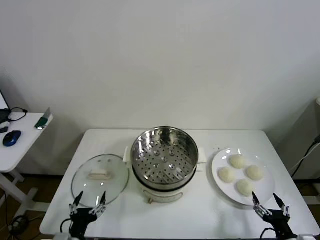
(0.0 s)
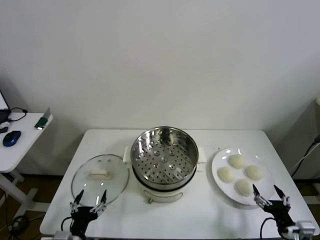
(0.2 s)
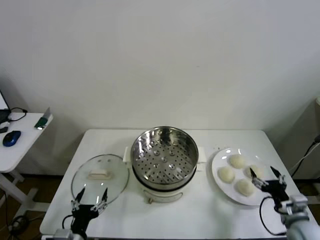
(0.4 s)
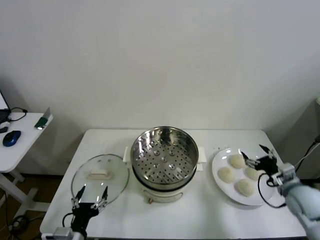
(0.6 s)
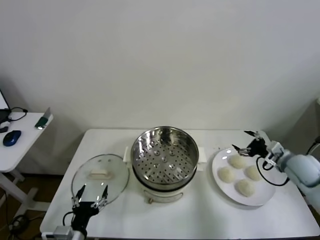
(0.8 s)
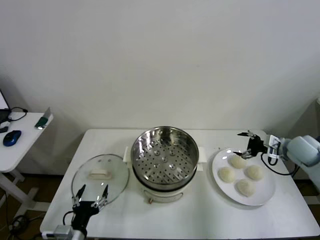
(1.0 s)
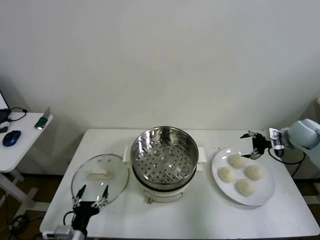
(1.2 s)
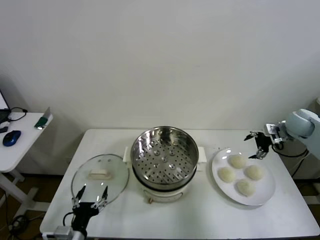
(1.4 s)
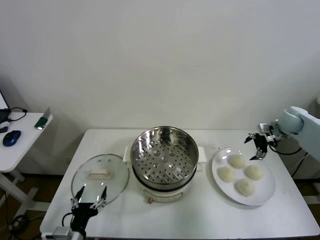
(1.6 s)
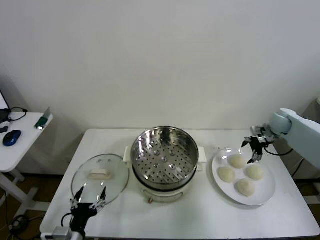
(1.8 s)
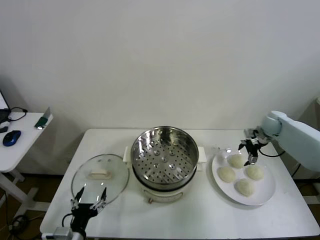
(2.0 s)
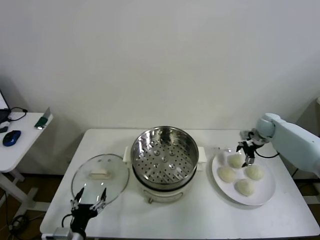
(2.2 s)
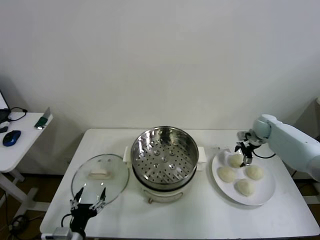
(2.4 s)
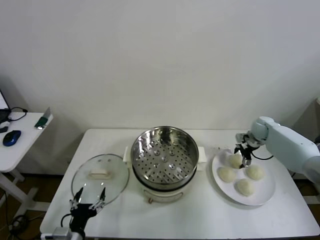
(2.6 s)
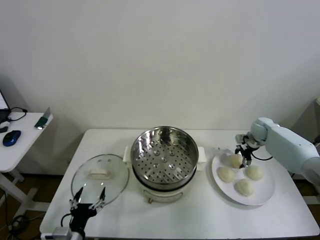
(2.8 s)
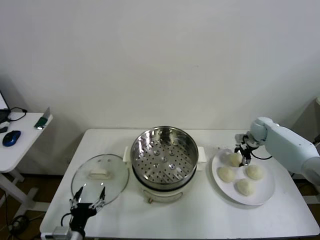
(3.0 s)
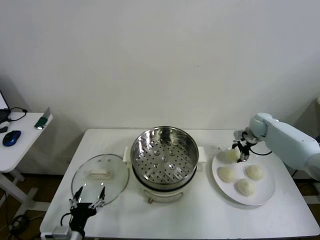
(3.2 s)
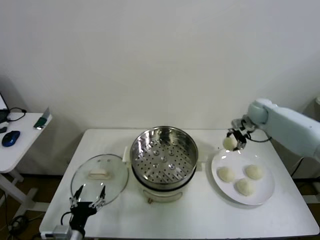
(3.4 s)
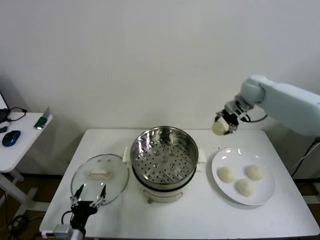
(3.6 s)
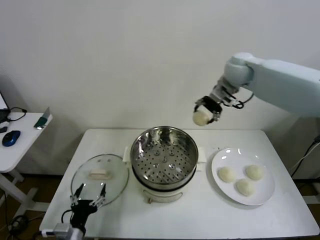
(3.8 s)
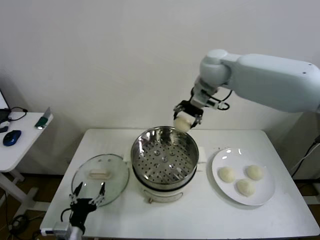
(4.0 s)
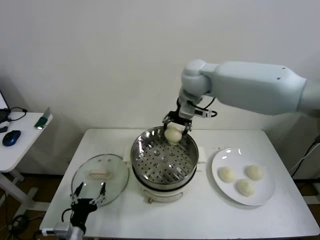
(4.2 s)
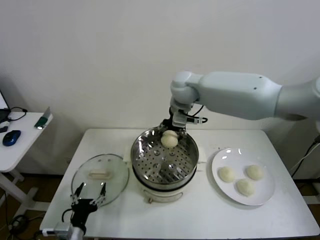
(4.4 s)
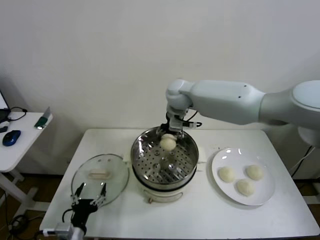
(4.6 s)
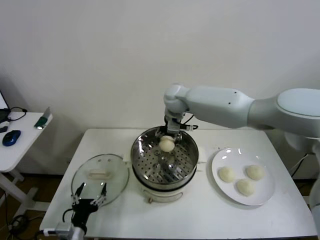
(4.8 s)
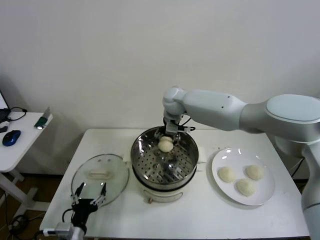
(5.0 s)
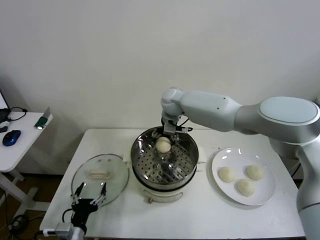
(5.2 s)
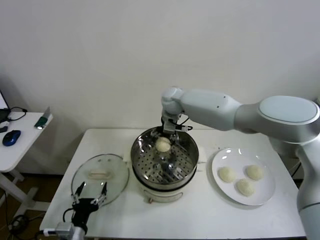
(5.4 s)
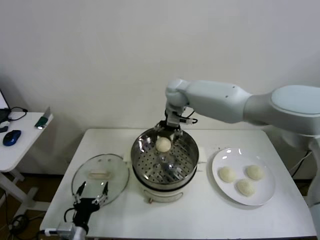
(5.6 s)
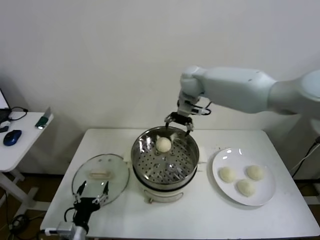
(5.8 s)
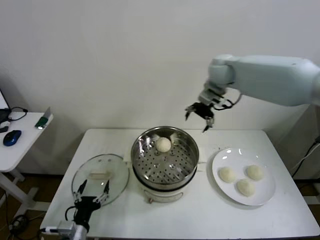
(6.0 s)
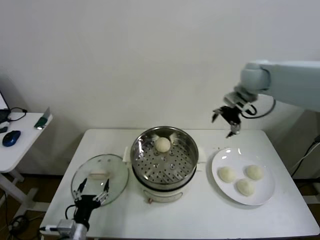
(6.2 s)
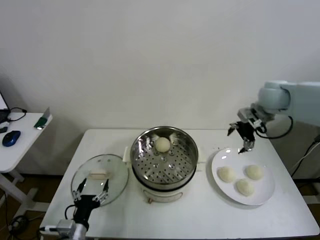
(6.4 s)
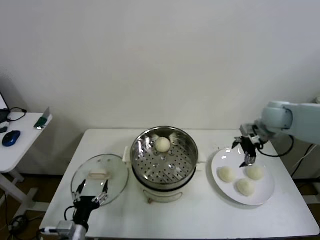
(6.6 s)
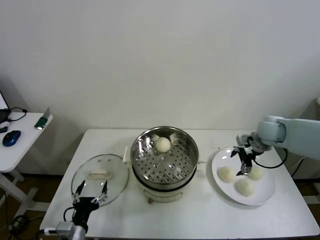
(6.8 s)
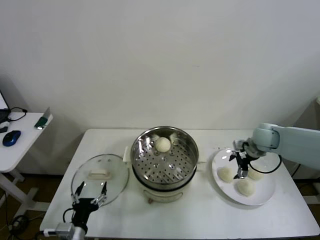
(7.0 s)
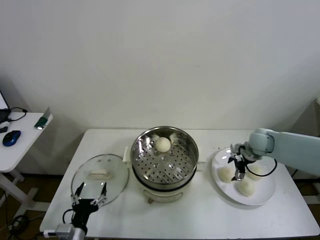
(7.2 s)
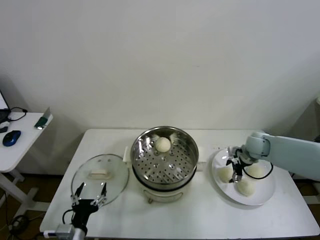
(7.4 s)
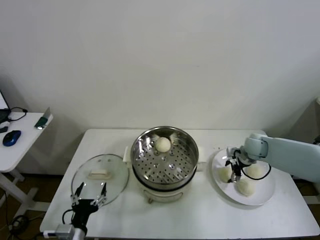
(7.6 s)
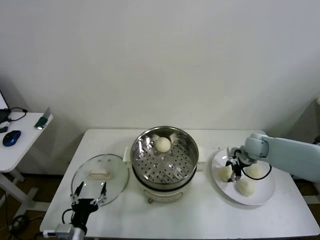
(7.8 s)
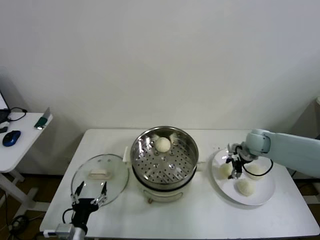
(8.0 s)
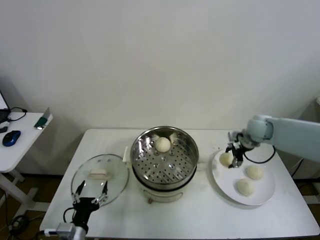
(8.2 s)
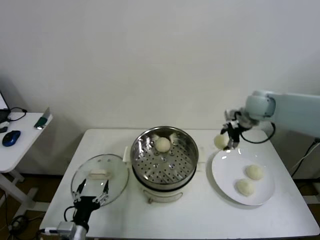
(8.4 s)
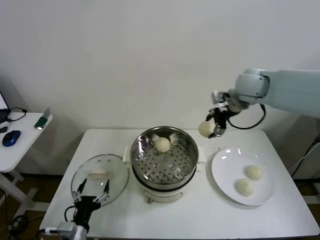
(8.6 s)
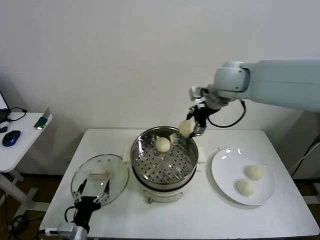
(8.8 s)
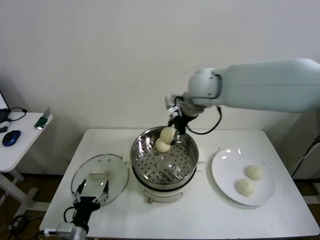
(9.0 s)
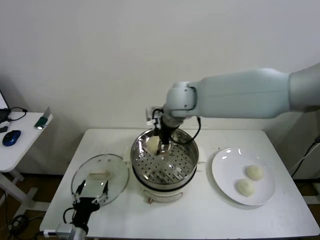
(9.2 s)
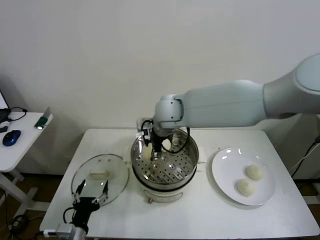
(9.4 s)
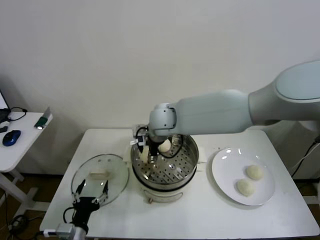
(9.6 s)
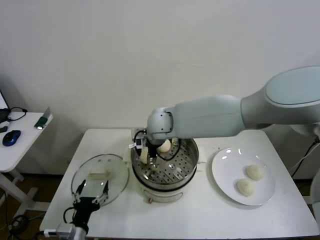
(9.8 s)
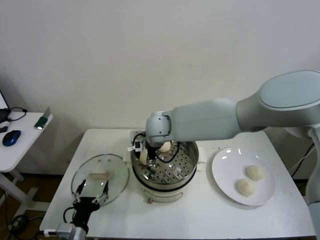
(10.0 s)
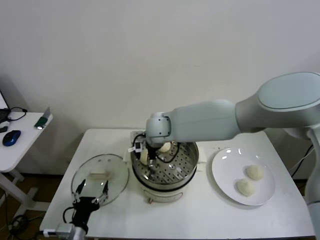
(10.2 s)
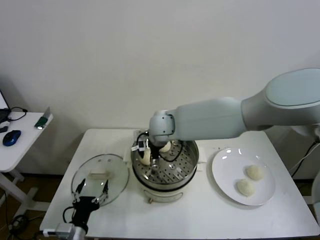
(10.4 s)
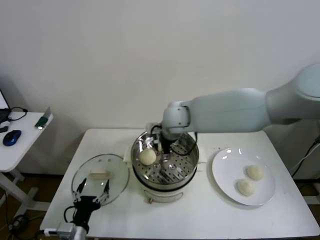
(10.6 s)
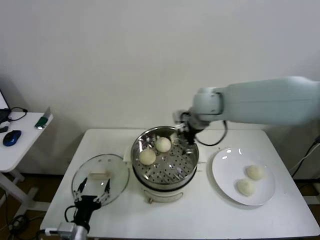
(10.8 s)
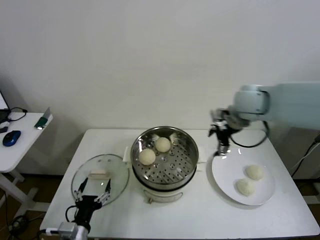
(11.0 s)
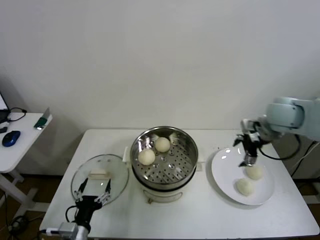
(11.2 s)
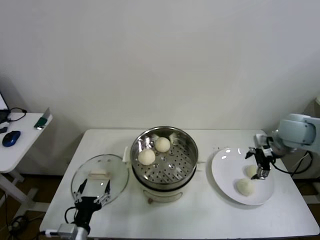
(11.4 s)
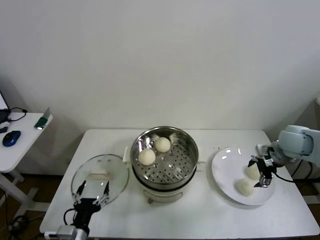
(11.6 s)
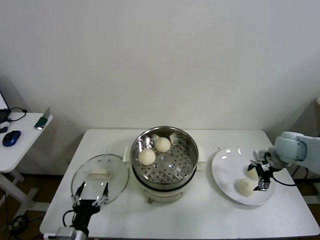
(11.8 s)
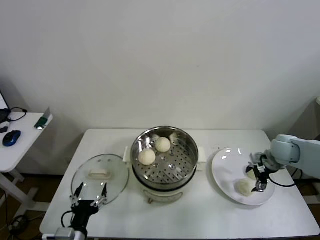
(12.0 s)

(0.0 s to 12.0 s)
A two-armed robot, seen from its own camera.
Step, 0.0 s - 2.8 s: Grasp the baozi in the plate with right gripper.
Step, 3.0 s - 5.4 s: Place the baozi on the steamer with right gripper.
Step, 5.6 s - 7.8 s: Grasp the baozi in the plate with right gripper.
Step, 8.0 s - 10.4 s: Place the baozi on the steamer with right gripper.
1.6 s - 3.0 s: The right gripper heads downward, covering approximately 10 cm, and closes.
3.0 s - 4.4 s: The right gripper moves to the left and upward, about 40 cm.
4.4 s - 6.0 s: The right gripper is displaced to the right by approximately 20 cm, and opens its fingers.
6.0 s - 7.6 s: The right gripper shifts roughly 30 cm downward and to the right, and closes.
7.6 s - 9.0 s: The right gripper goes approximately 35 cm to the left and upward, and closes its fingers.
9.0 s - 10.4 s: The right gripper shifts about 15 cm downward and to the left, and opens up.
10.4 s - 12.0 s: The right gripper shifts approximately 40 cm to the right.

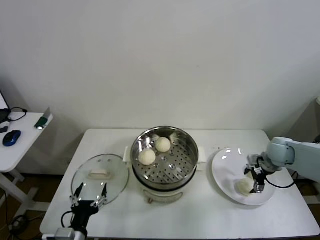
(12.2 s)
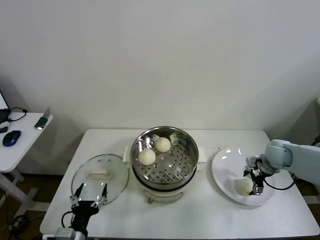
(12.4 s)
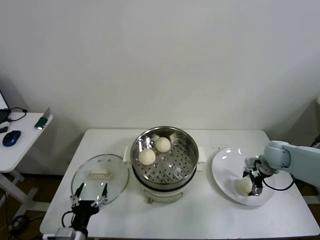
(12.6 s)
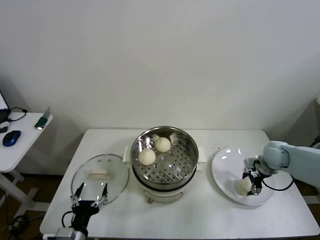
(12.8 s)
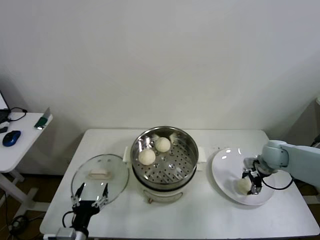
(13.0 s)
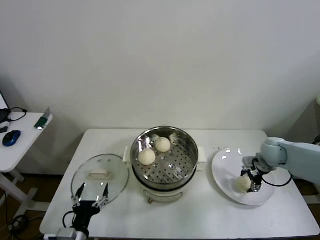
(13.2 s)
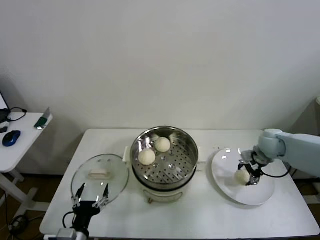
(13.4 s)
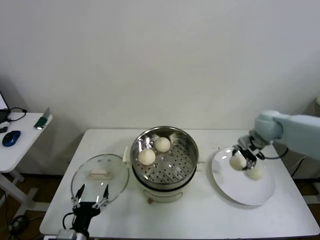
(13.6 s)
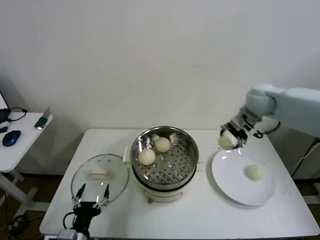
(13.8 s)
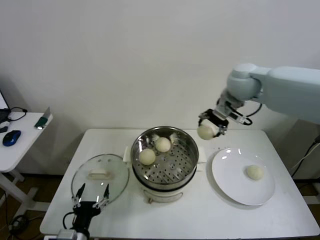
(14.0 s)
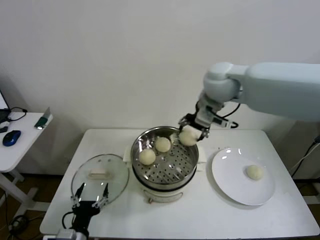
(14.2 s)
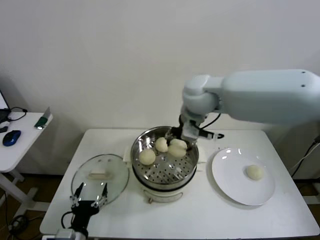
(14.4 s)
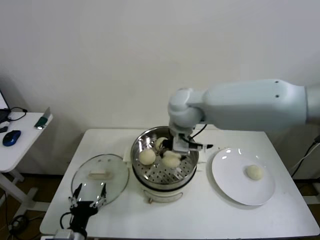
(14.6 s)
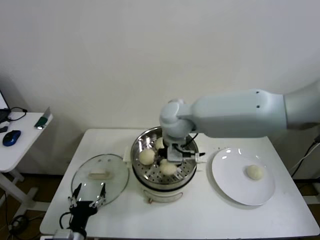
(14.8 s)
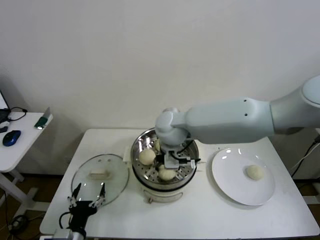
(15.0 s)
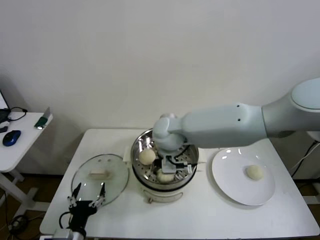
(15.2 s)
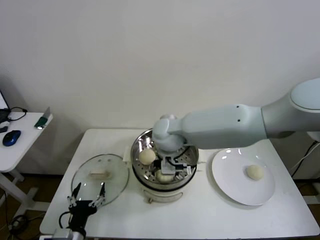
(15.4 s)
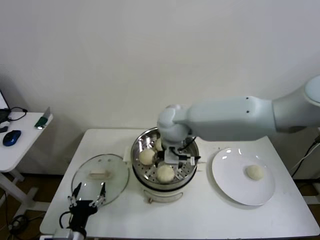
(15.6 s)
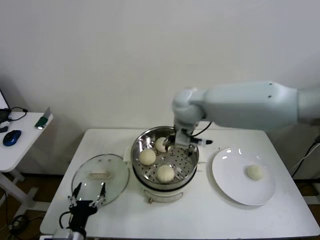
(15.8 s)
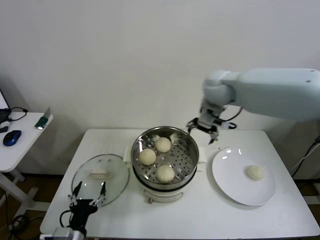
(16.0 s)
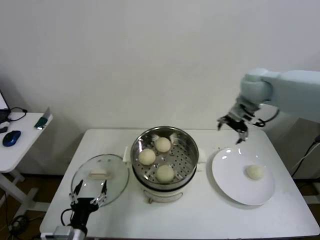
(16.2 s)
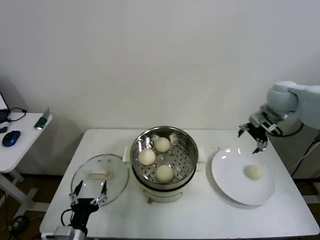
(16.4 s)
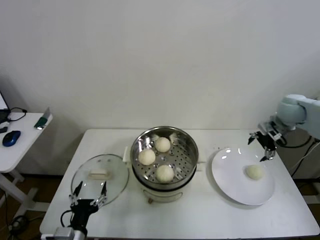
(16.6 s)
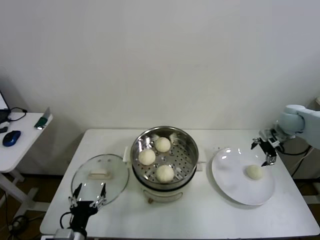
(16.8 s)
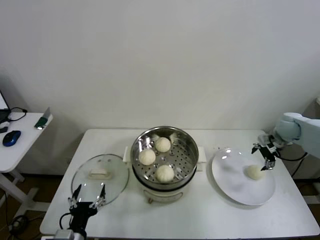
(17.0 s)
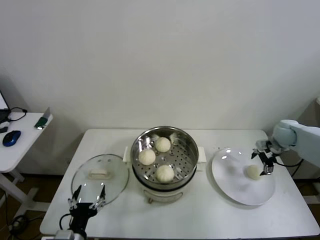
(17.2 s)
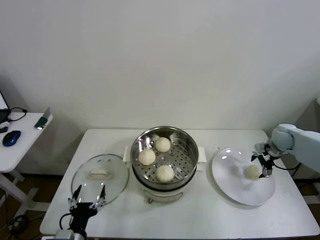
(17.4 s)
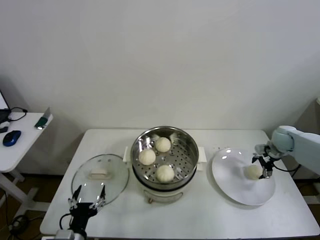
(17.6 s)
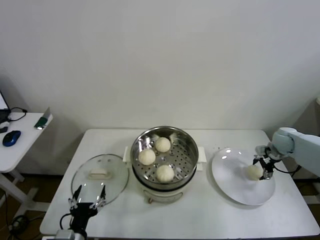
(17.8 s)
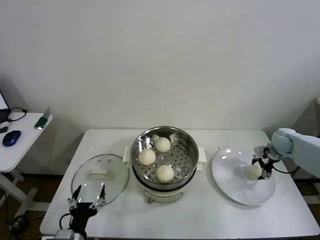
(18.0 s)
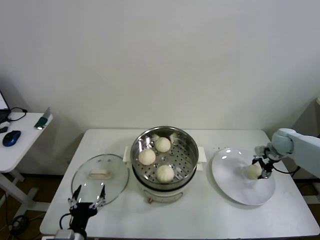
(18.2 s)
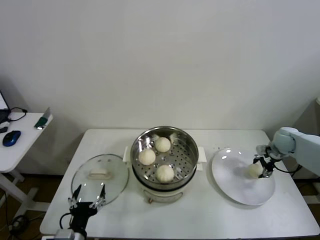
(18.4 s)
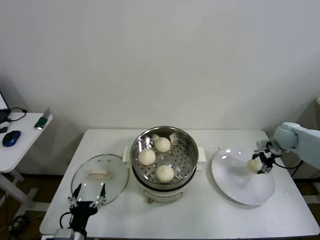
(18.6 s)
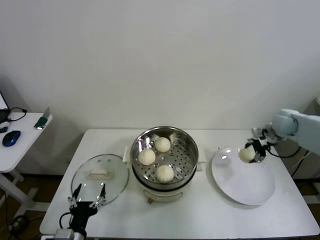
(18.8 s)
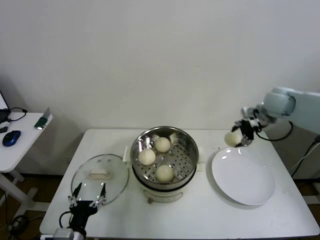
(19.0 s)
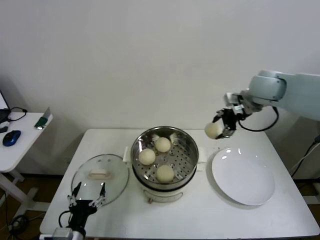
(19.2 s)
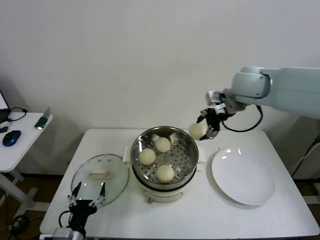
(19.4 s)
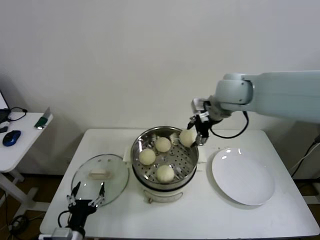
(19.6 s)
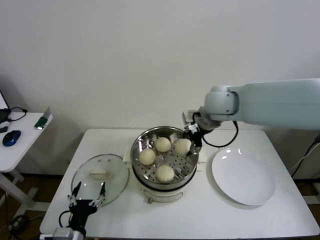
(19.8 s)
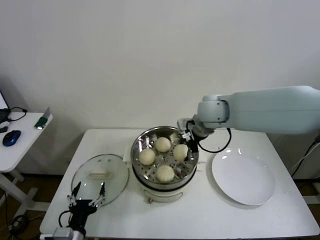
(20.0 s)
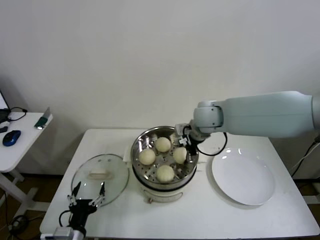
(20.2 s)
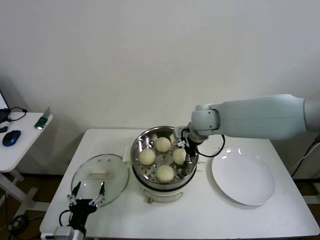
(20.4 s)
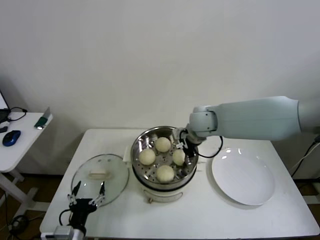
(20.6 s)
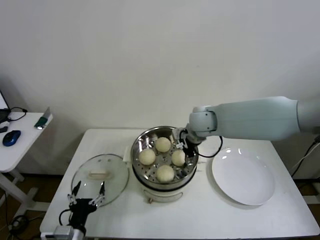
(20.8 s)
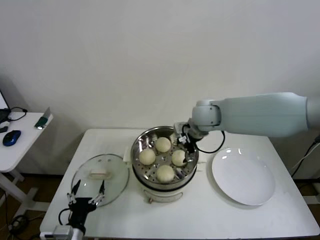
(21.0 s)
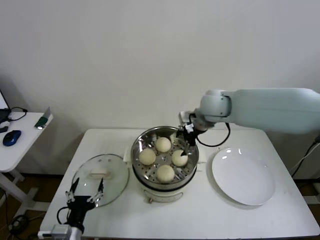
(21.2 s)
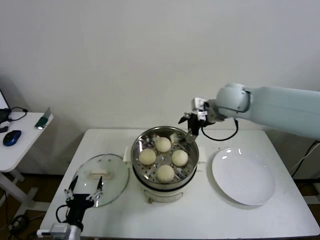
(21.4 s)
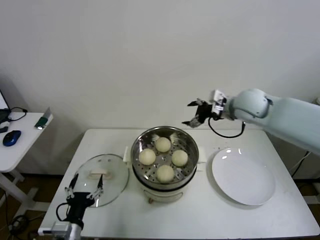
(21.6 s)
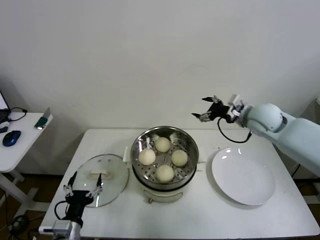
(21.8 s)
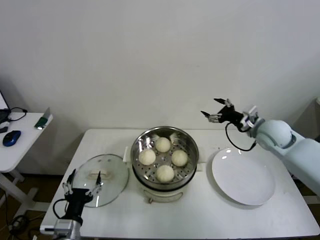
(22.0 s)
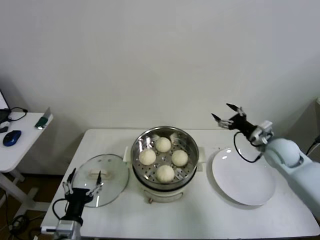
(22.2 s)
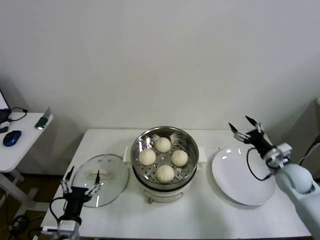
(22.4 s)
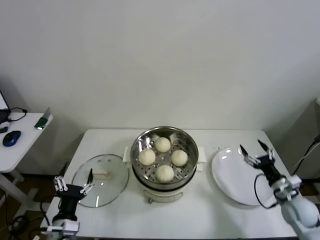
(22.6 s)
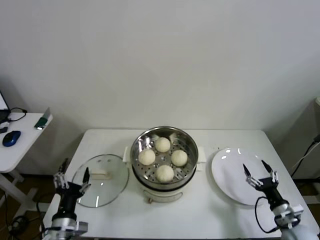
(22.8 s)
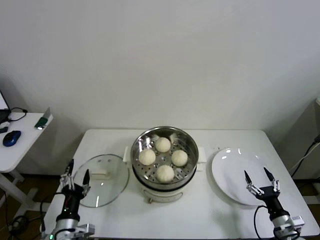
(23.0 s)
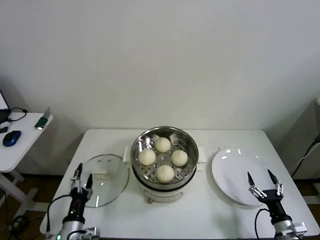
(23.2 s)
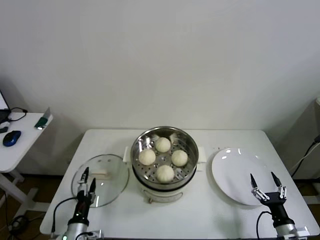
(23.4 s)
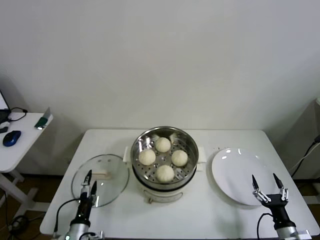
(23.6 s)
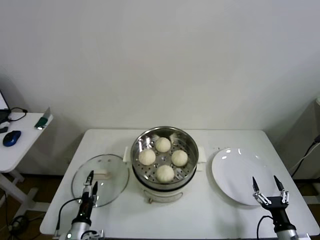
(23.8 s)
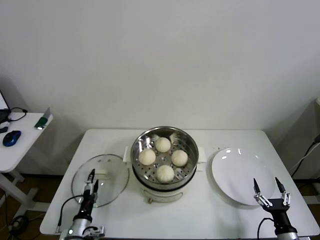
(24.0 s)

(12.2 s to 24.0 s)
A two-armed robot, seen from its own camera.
Step, 13.0 s - 15.4 s: Place the baozi on the steamer with right gripper.
Step, 15.8 s - 18.0 s: Grasp the baozi in the plate with right gripper.
Step, 18.2 s - 21.0 s: Place the baozi on the steamer with right gripper.
12.2 s - 13.6 s: The right gripper travels upward, to the left and forward by about 15 cm, and closes its fingers.
13.6 s - 15.2 s: The right gripper shifts approximately 35 cm to the left.
15.2 s - 16.6 s: The right gripper is displaced to the right by approximately 40 cm, and opens up.
16.6 s - 18.2 s: The right gripper shifts some 15 cm downward, and closes.
18.2 s - 19.6 s: The right gripper moves to the left and upward, roughly 40 cm.
19.6 s - 21.0 s: The right gripper moves downward and to the left, roughly 10 cm, and opens.
21.0 s - 22.6 s: The right gripper is displaced to the right, downward and backward by roughly 40 cm.
22.6 s - 24.0 s: The left gripper shifts roughly 15 cm downward, while the right gripper travels backward and downward by roughly 15 cm.
